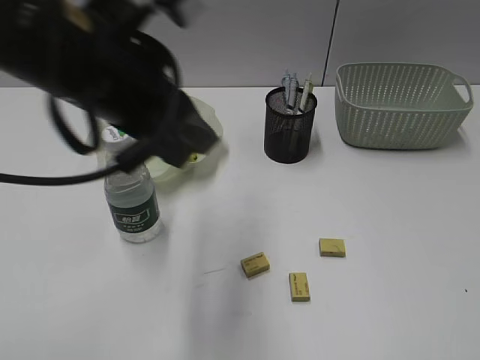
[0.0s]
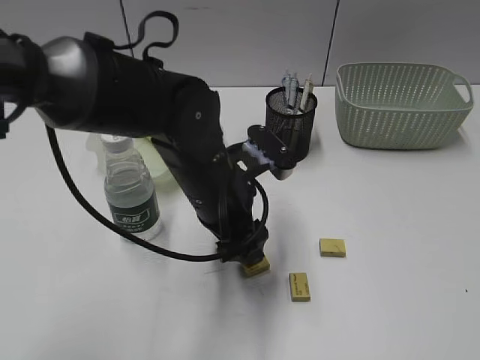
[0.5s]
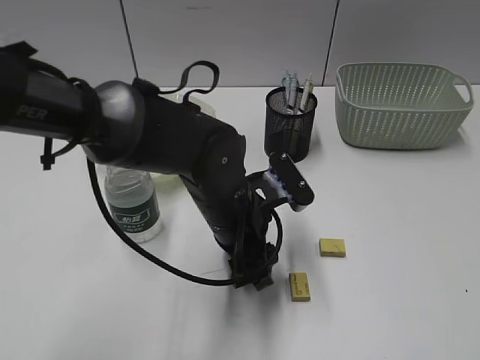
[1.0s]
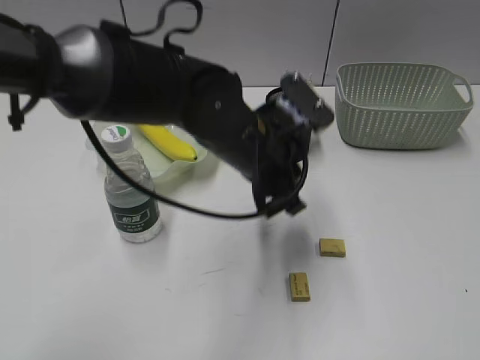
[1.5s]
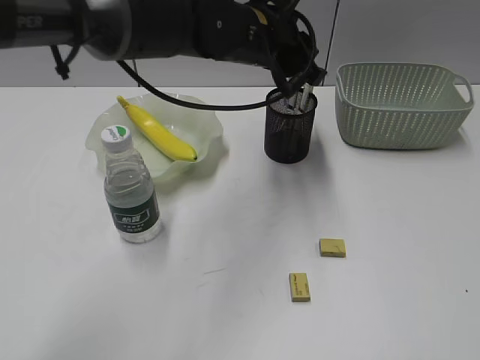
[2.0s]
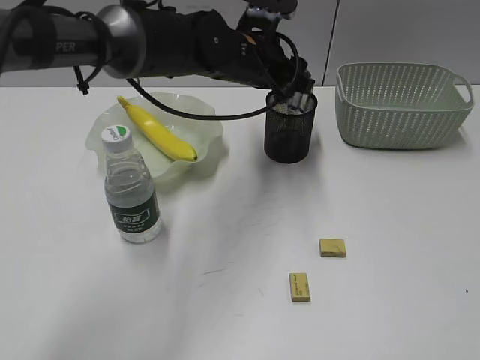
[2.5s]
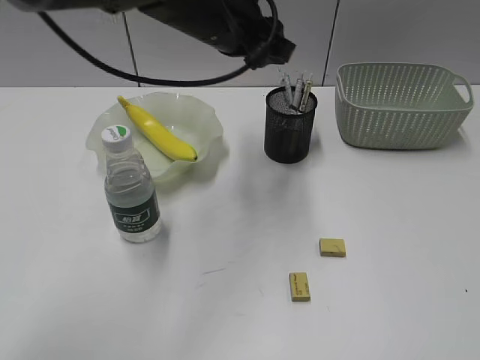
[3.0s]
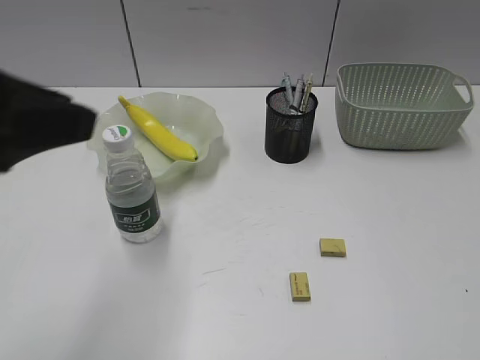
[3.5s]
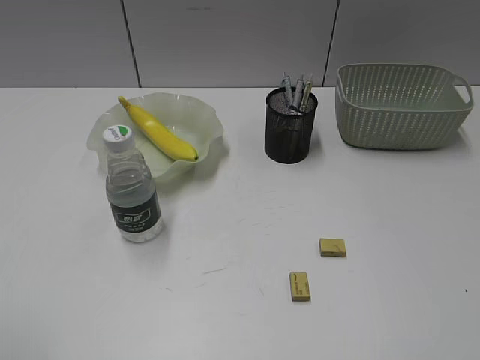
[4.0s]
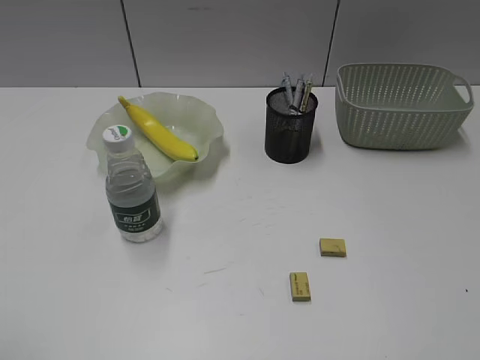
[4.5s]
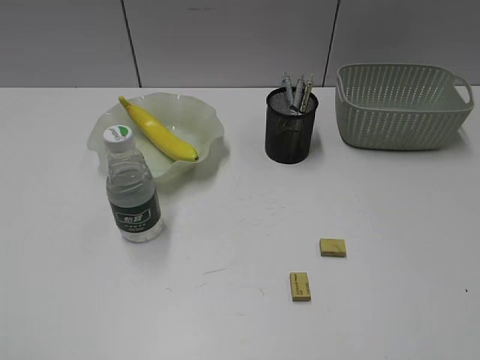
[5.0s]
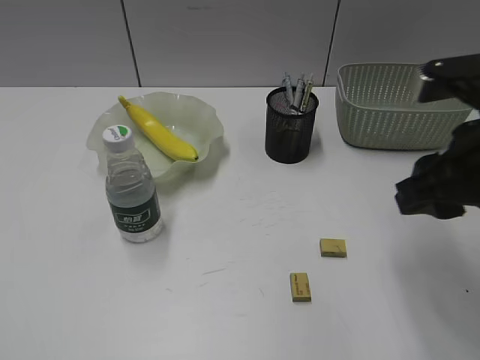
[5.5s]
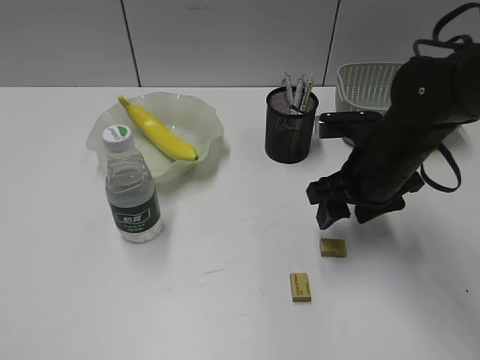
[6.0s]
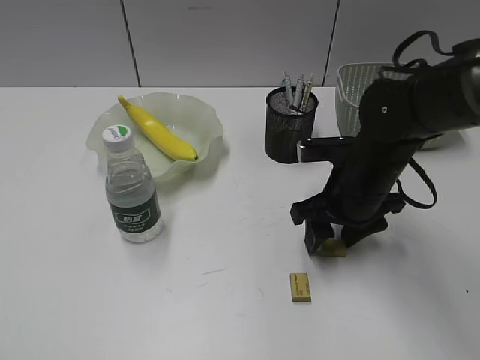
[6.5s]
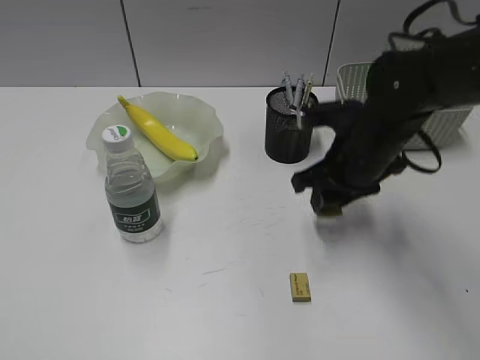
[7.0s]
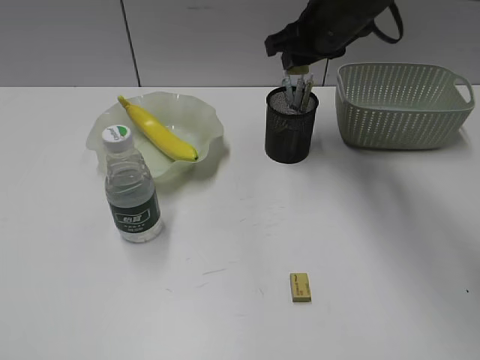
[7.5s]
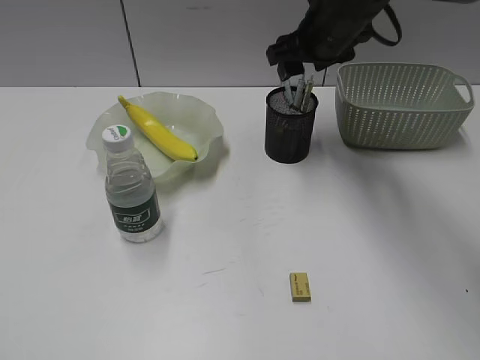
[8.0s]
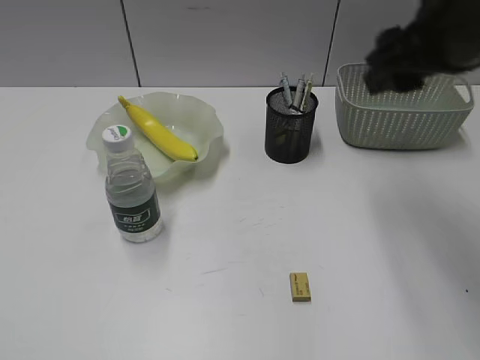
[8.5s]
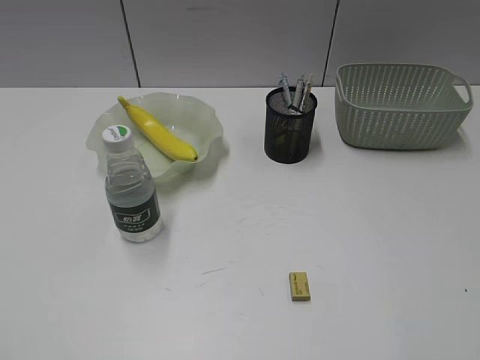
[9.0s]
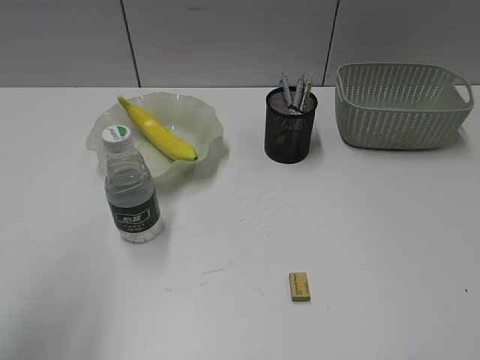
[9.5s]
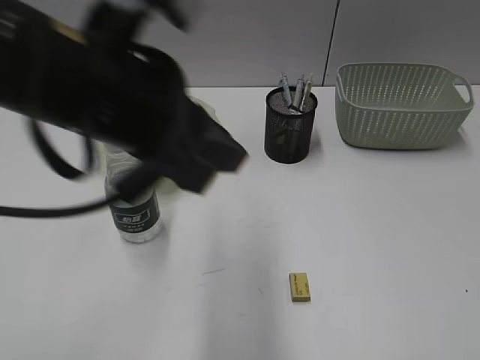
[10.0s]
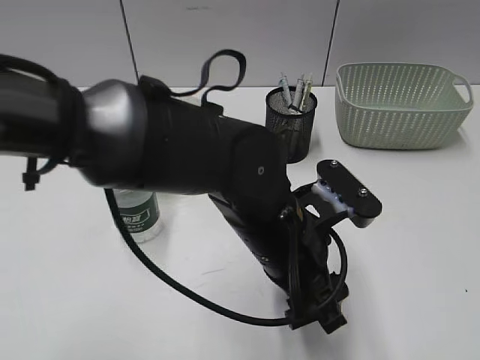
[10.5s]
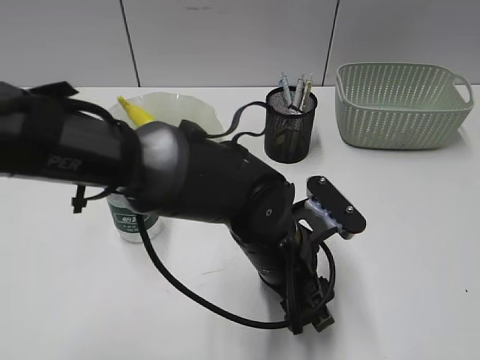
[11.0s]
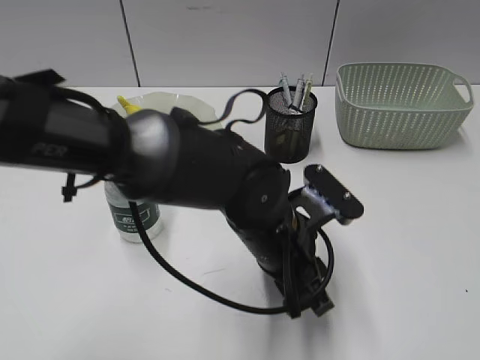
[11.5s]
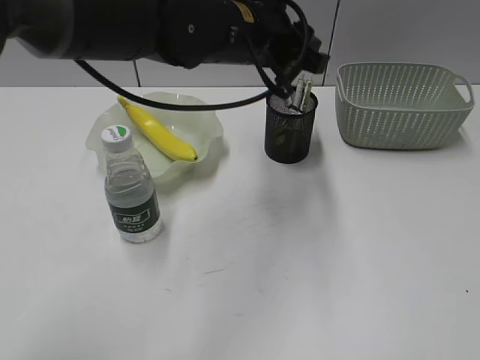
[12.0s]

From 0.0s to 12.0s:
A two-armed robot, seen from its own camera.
Step, from 1.5s to 2.5s: Place the eraser in pen holder with left gripper.
Step, from 3.0s to 6.5s: Grasp the eraser with right gripper.
Step, from 7.0s to 8.0s: Place the eraser in pen holder with right gripper.
Step, from 8.5s to 11.0s: Grasp the eraser with left gripper.
From 0.0s to 2.0s: The left gripper moves forward and to the right, some 20 cm, goes downward and returns, roughly 15 cm each way, and opens and closes again.
From 2.0s to 4.0s: The left gripper is displaced backward and to the left by about 50 cm, and opens and closes again.
From 4.0s to 6.0s: The right gripper moves forward, to the left and downward, about 40 cm, and opens up.
From 6.0s to 8.0s: The right gripper travels forward, upward and to the left by some 15 cm, and closes, then opens again.
From 8.0s to 10.0s: The left gripper moves to the right and forward, approximately 35 cm, while the right gripper heads backward and to the right, covering some 50 cm.
From 10.0s to 12.0s: The left gripper shifts about 15 cm forward and to the right, moves roughly 15 cm downward and comes back, and opens, then closes once more.

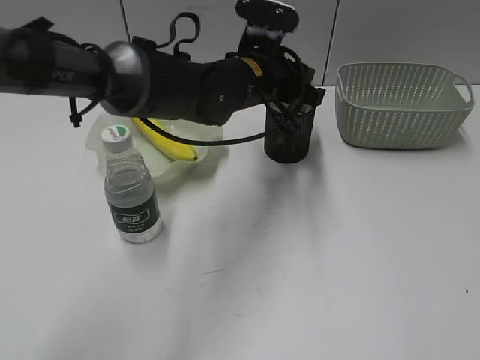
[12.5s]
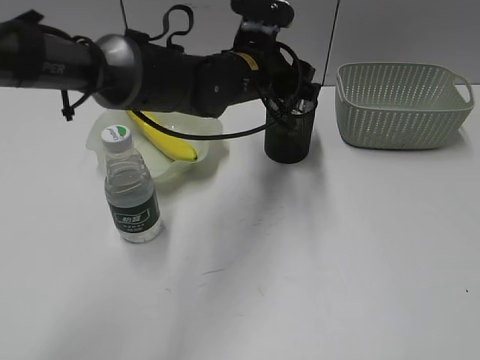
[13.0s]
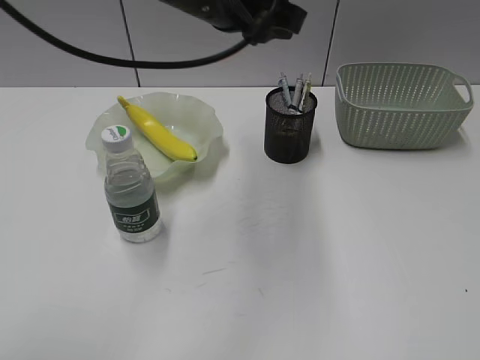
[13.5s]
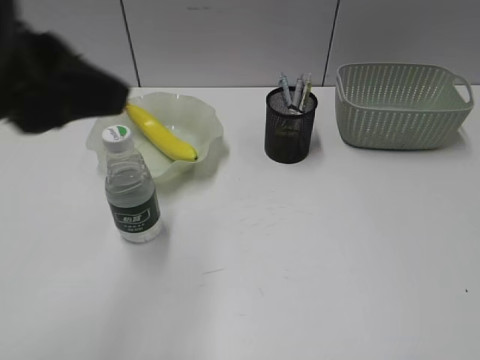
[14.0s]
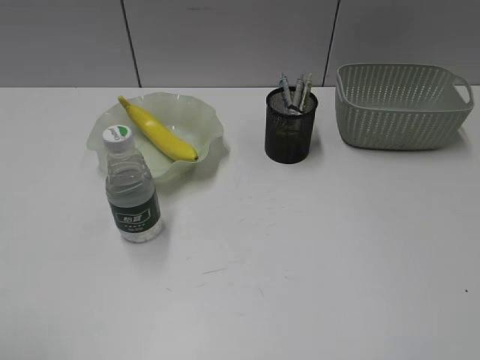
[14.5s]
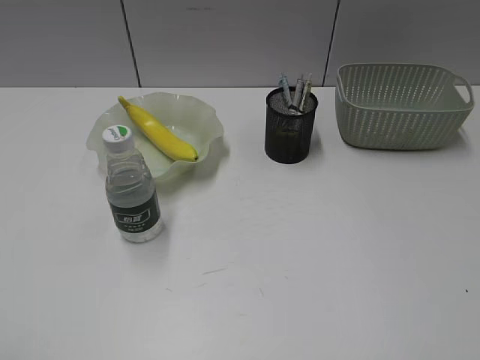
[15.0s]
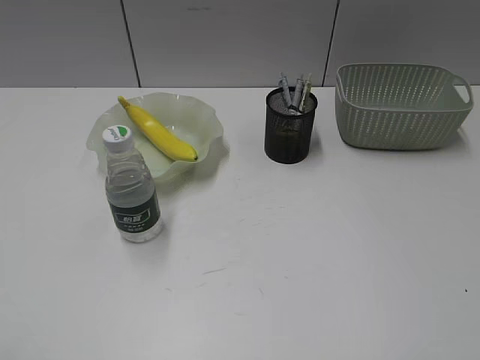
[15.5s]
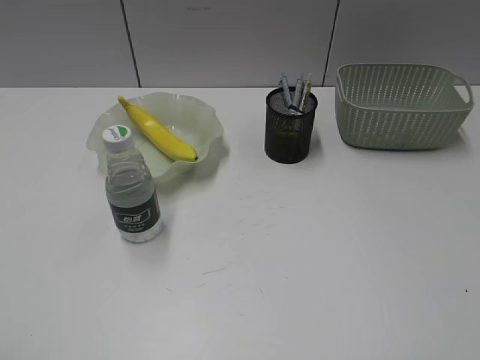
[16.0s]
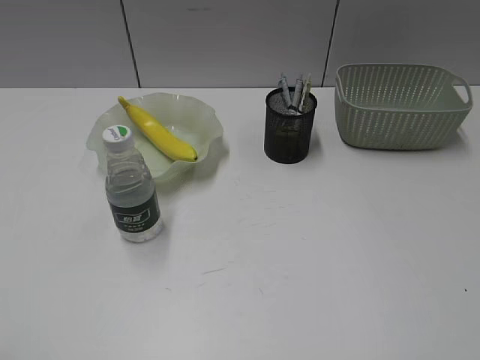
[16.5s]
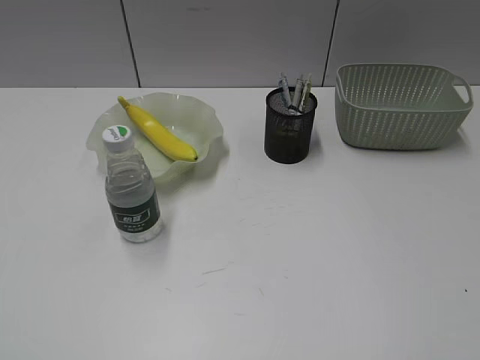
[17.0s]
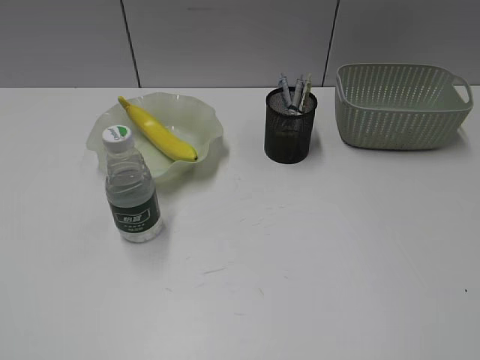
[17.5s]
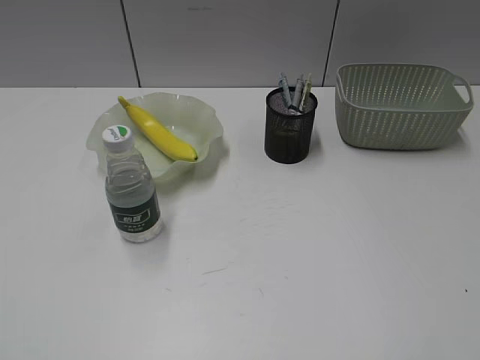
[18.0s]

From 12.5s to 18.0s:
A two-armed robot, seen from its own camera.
From 12.5s to 14.5s: The left gripper travels backward and to the left by about 50 cm, and opens and closes again.

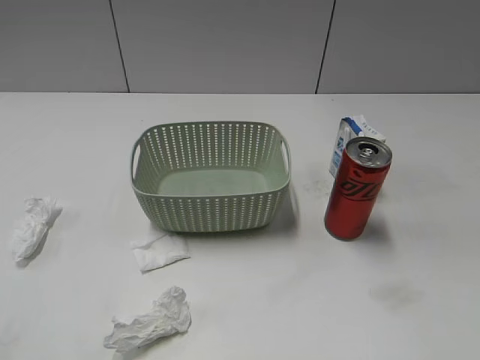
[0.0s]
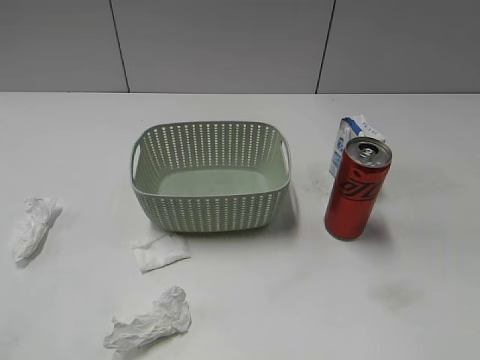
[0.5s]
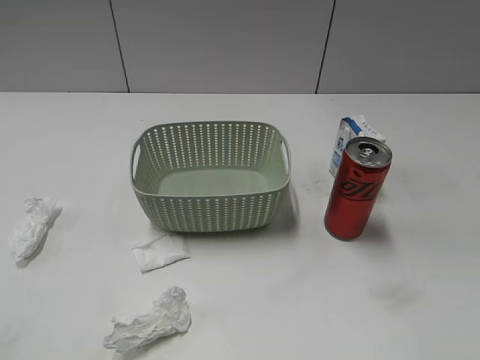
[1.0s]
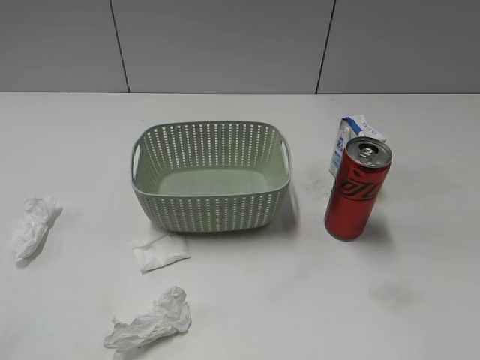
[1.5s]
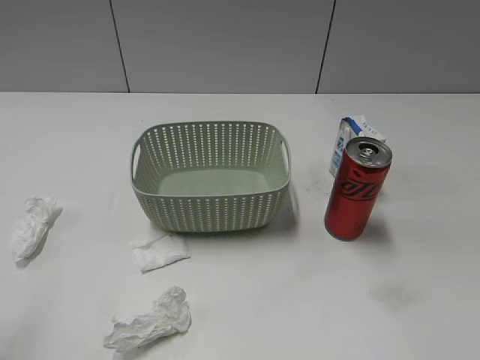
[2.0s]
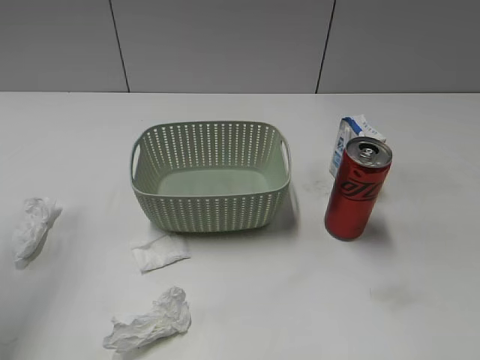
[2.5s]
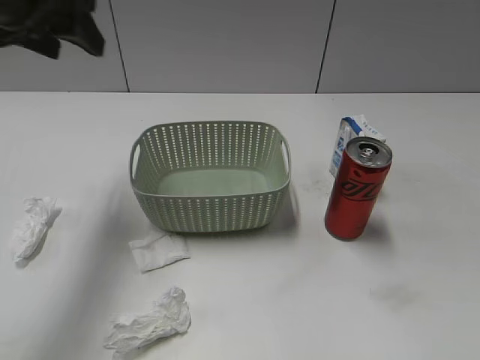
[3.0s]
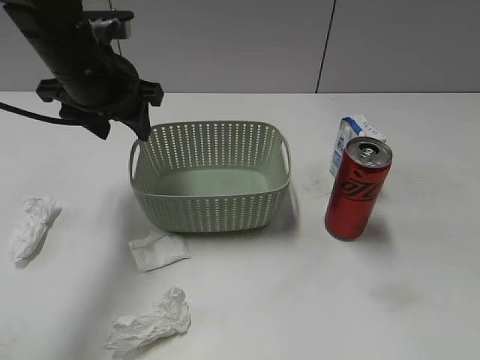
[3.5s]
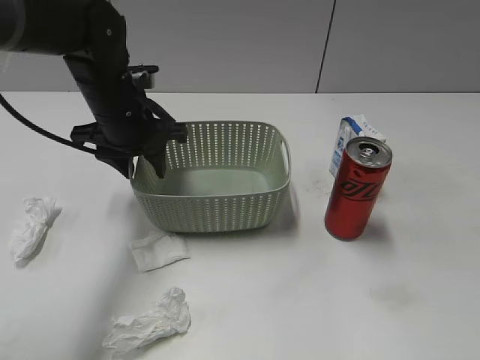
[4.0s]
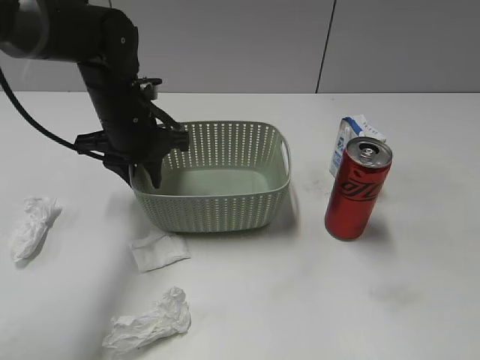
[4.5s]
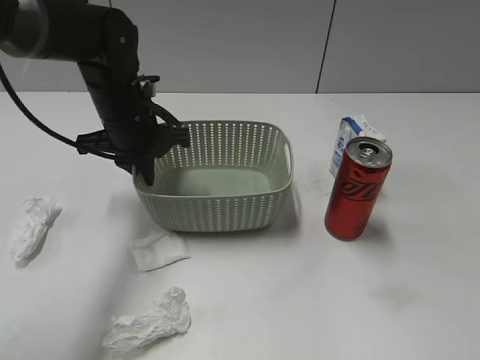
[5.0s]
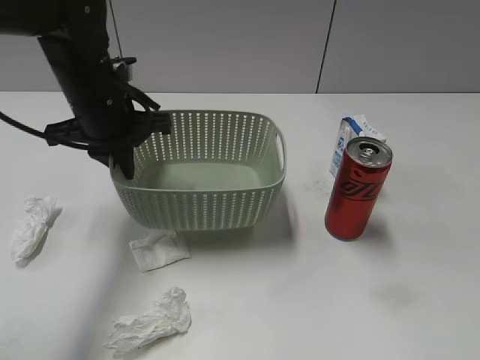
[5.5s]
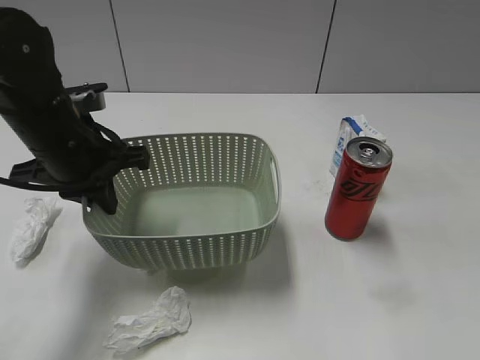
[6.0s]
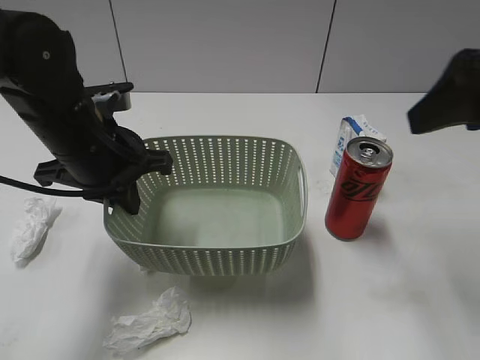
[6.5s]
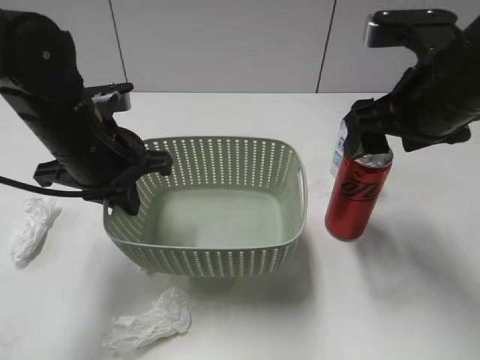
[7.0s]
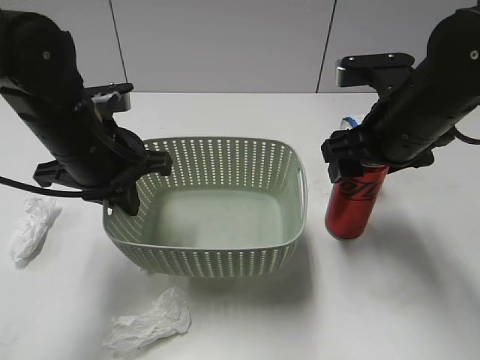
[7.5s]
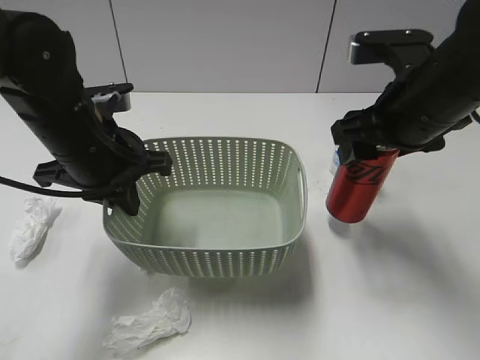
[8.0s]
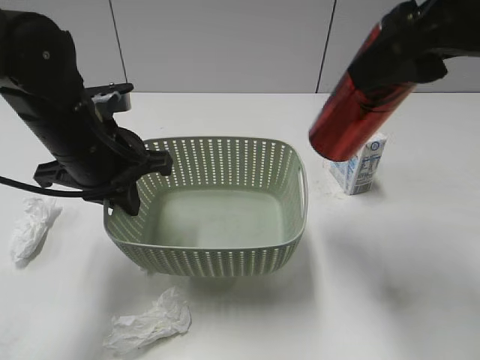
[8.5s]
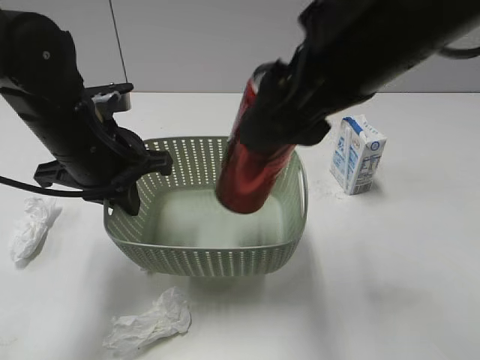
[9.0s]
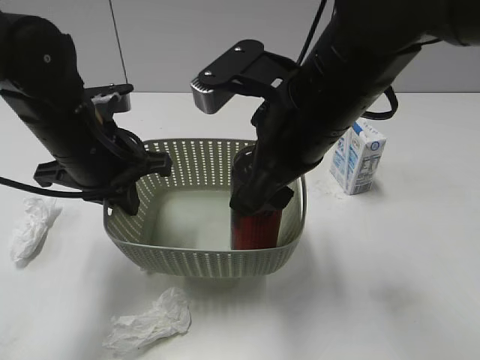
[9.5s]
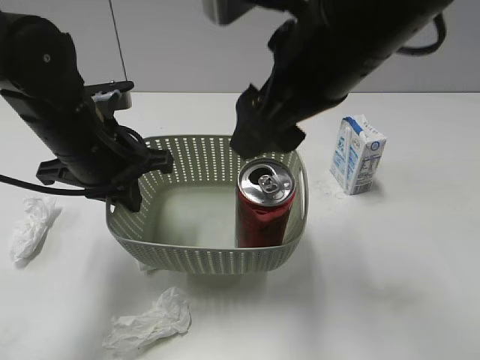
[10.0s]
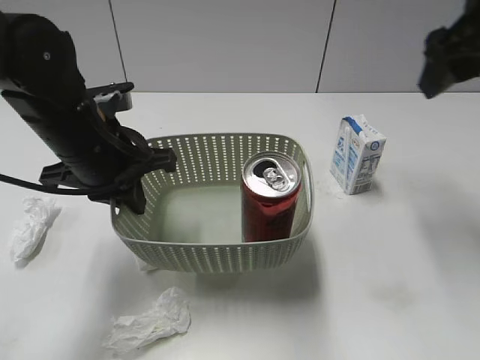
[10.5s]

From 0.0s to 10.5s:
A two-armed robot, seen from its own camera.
Step, from 3.0s to 4.5s: Grasp the basket with left gripper.
Step, from 5.0s to 6.0s: Lift the basket with left gripper.
Step, from 6.5s to 7.5s: Grasp the cola can with right gripper.
Step, from 8.0s to 10.0s: Place the cola can in the basket with right gripper.
From 2.0s to 4.0s: The left gripper heads forward, downward and to the right, covering about 35 cm.
From 4.0s to 6.5s: The right gripper goes roughly 25 cm forward and to the left, and opens, while the left gripper shifts about 10 cm backward, and closes its fingers.
From 6.5s to 8.5s: The right gripper moves about 10 cm downward and comes back, and closes.
From 8.5s to 10.5s: The right gripper shifts approximately 15 cm forward and to the right, and opens up.
